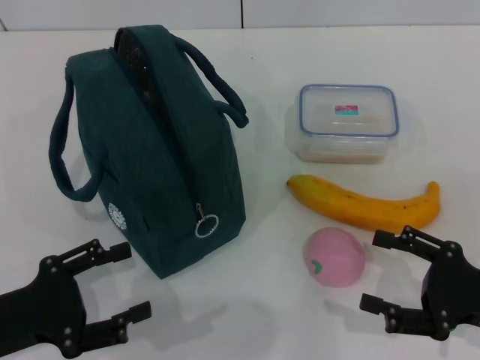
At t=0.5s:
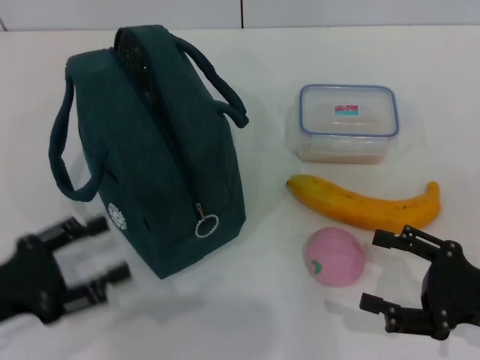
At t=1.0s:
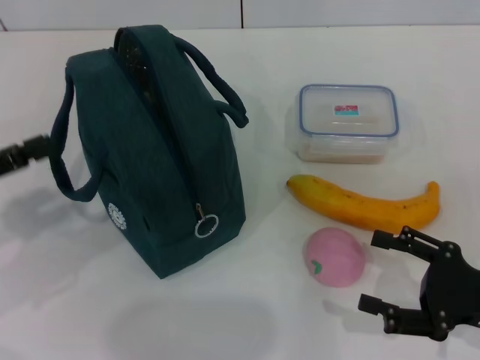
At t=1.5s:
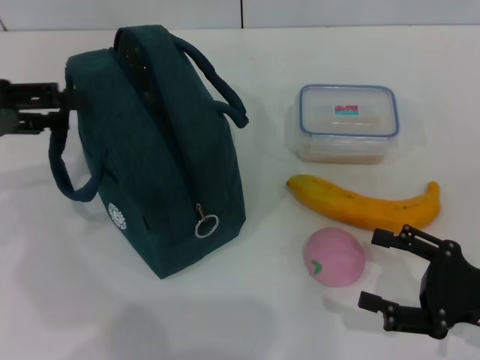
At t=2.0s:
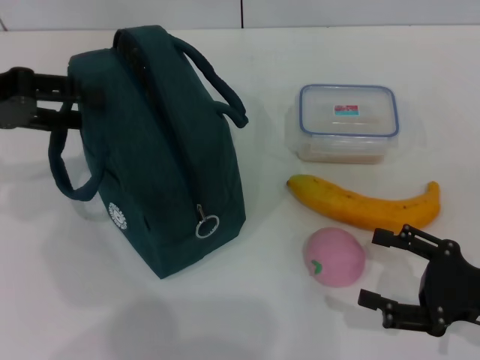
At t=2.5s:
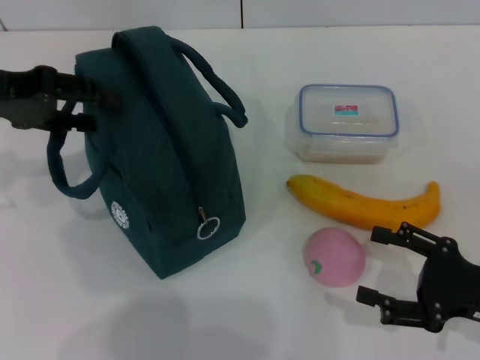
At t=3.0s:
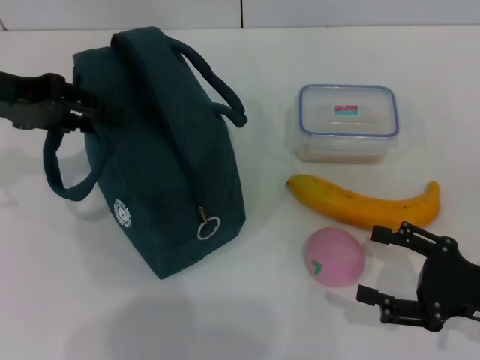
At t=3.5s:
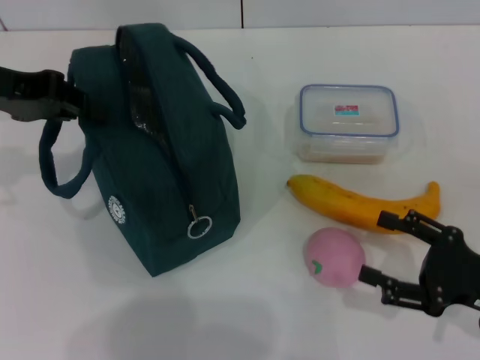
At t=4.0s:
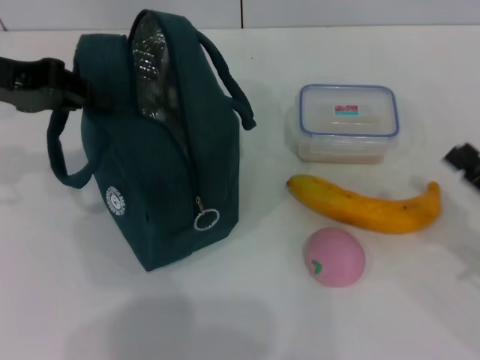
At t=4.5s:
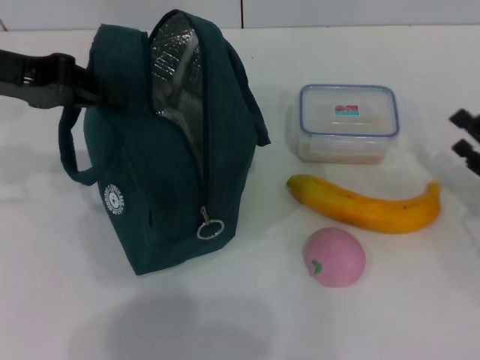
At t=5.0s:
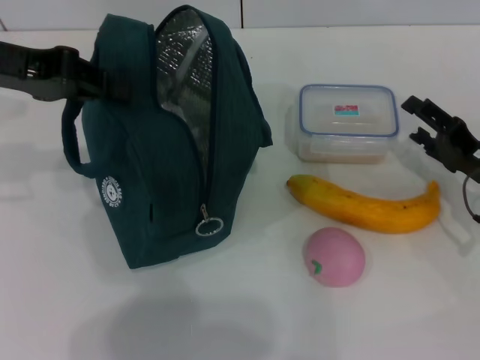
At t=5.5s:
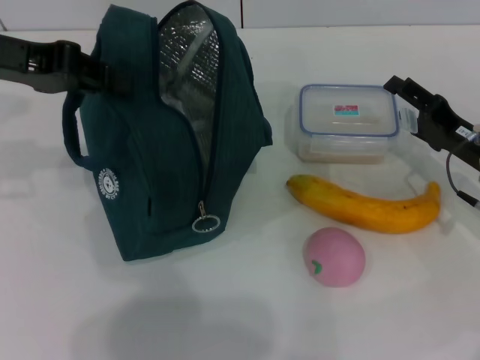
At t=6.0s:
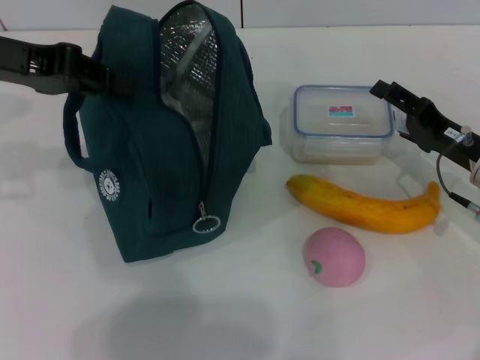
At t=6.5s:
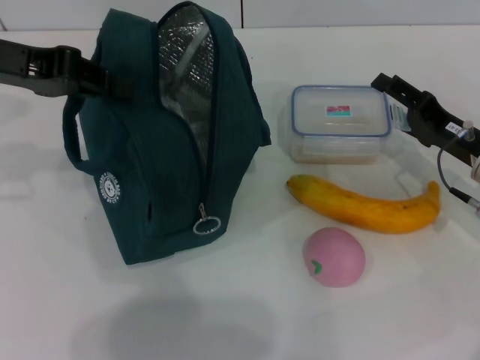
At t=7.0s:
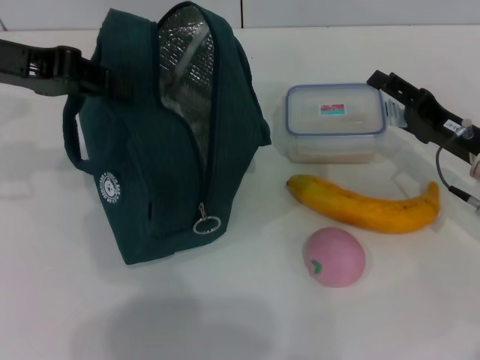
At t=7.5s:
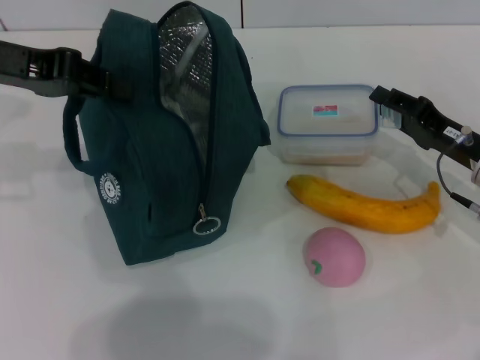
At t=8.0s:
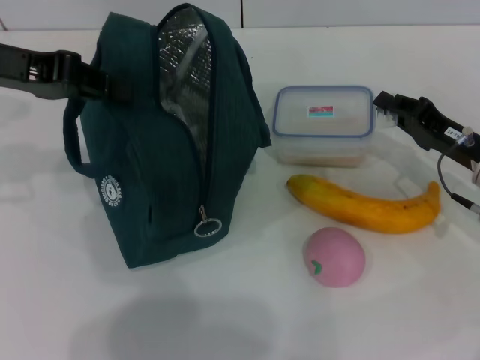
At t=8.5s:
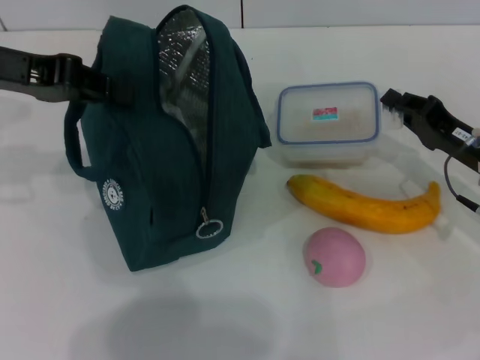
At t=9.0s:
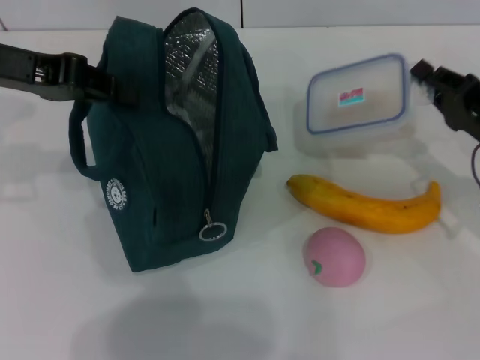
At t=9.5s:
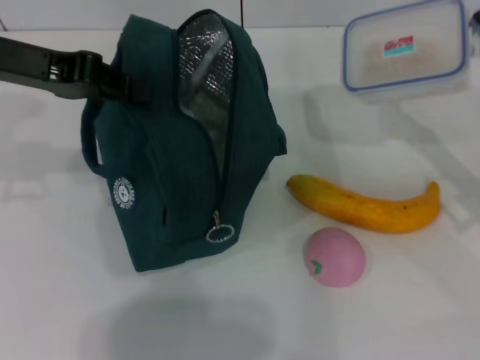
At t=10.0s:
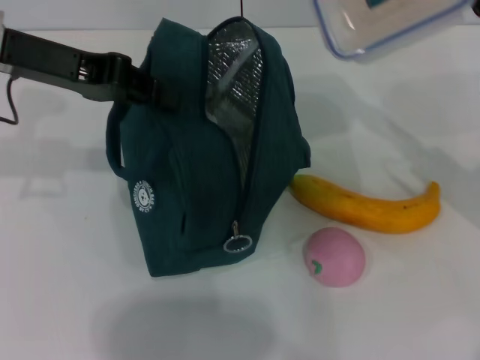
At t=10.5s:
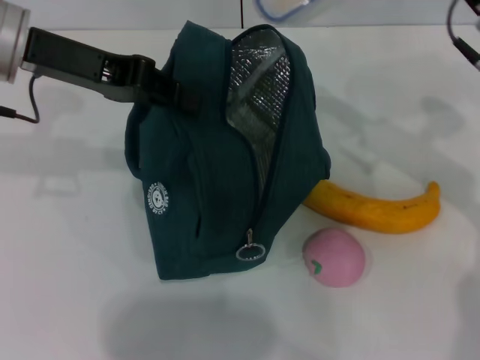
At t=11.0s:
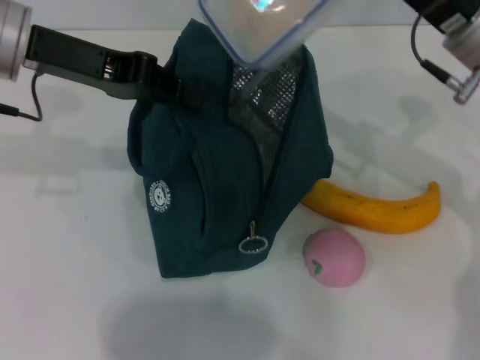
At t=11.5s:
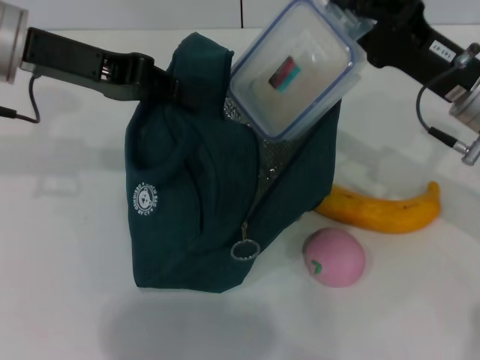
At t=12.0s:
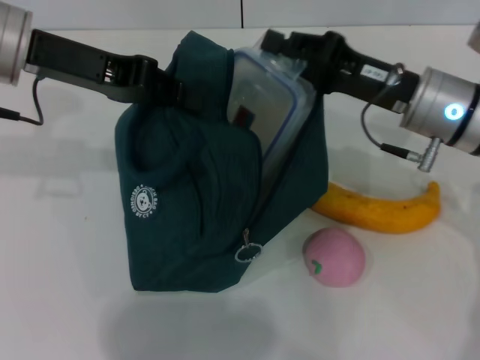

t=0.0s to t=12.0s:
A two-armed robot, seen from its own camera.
Step, t=0.0s to t=3.5s: Hold the lunch bag with your left hand.
Step, t=4.0s to t=8.0s: Pick up the lunch box with your right hand.
t=0.0s to t=2.0s: The left gripper heads forward and upward, covering some 20 cm.
t=2.0s to t=4.0s: The left gripper closes up.
t=4.0s to t=6.0s: The right gripper heads forward and to the left, covering some 15 cm.
t=6.0s to t=8.0s: The right gripper closes up.
t=8.0s to t=10.0s: The right gripper shifts some 10 cm upward.
t=10.0s to t=12.0s: The right gripper moves to the left, some 10 cm.

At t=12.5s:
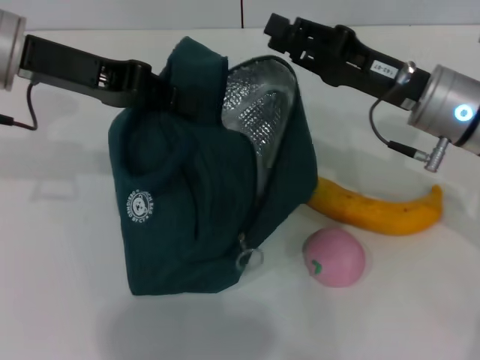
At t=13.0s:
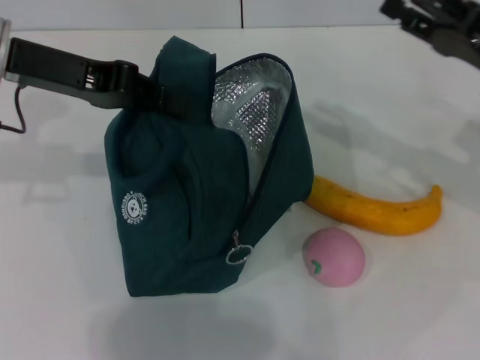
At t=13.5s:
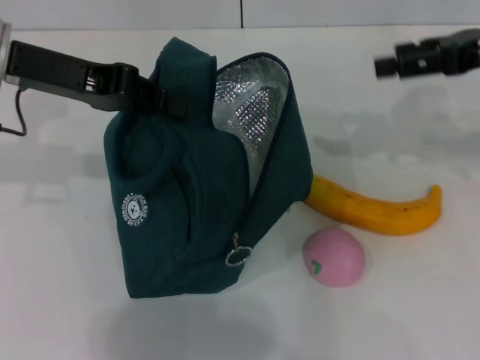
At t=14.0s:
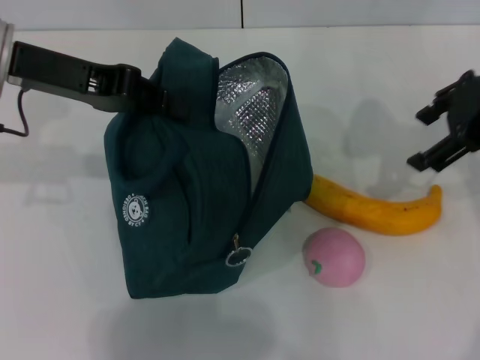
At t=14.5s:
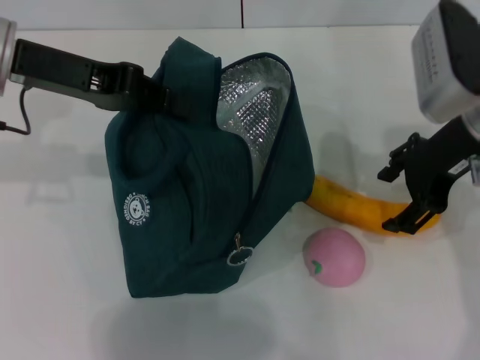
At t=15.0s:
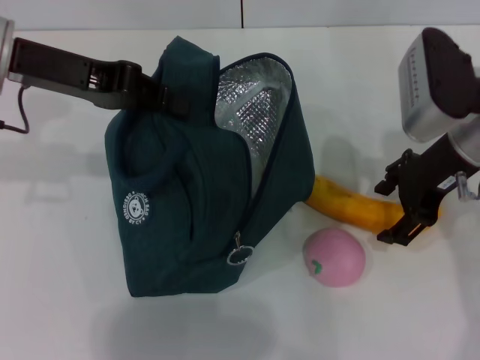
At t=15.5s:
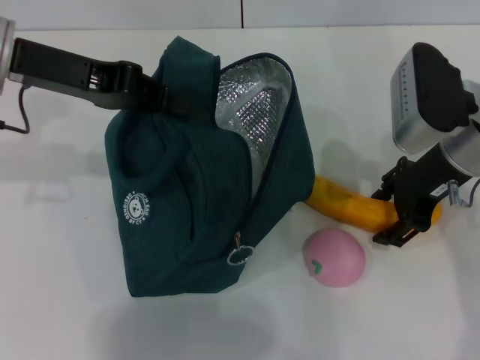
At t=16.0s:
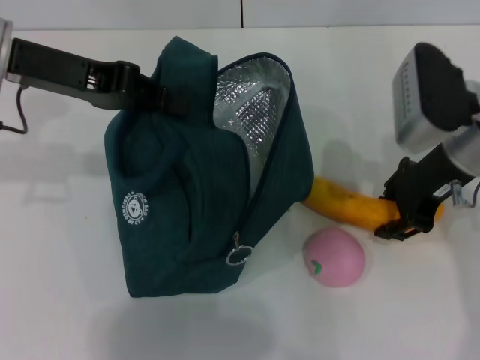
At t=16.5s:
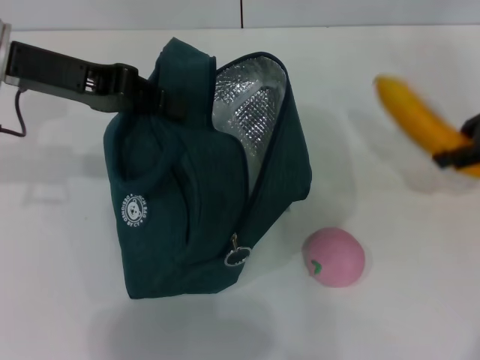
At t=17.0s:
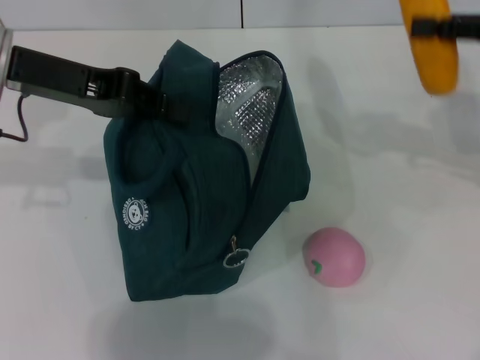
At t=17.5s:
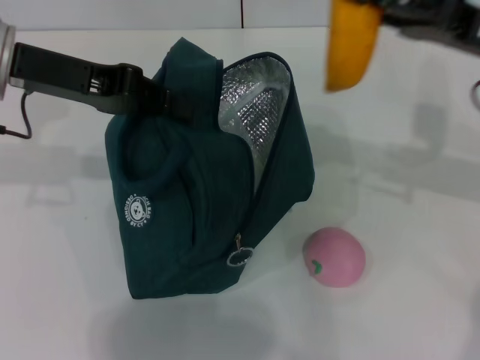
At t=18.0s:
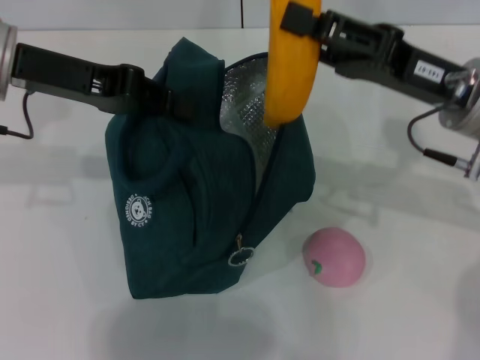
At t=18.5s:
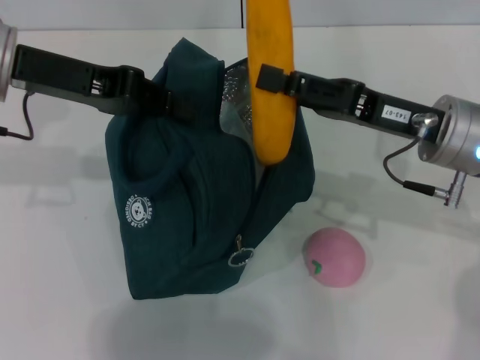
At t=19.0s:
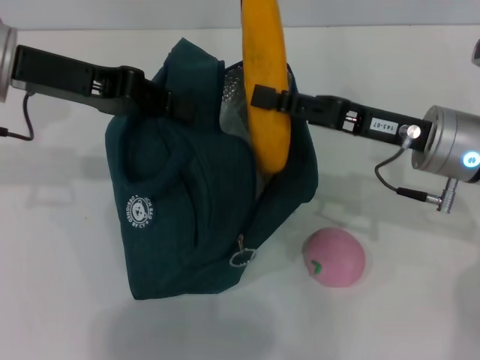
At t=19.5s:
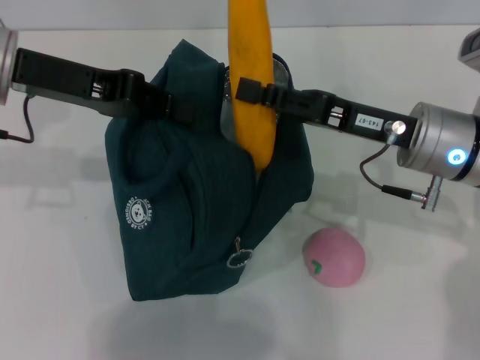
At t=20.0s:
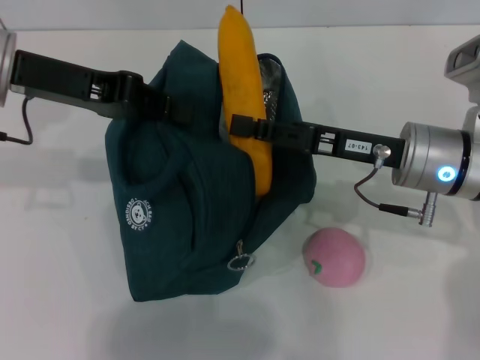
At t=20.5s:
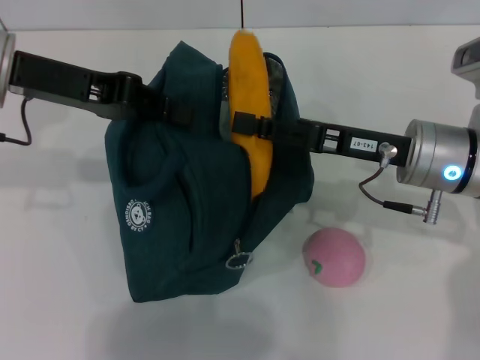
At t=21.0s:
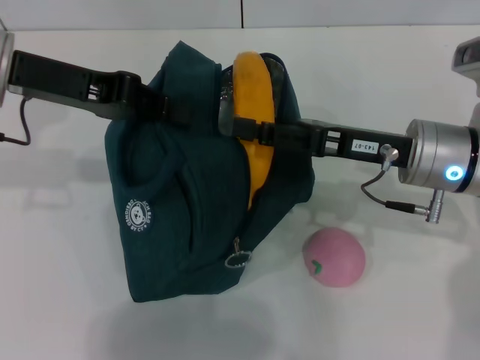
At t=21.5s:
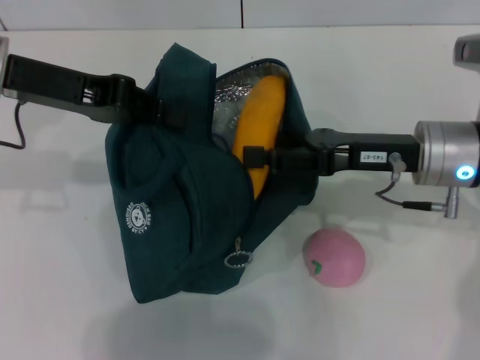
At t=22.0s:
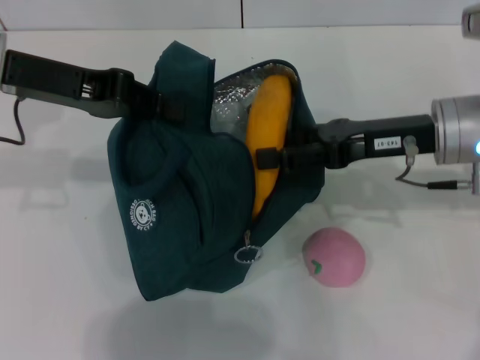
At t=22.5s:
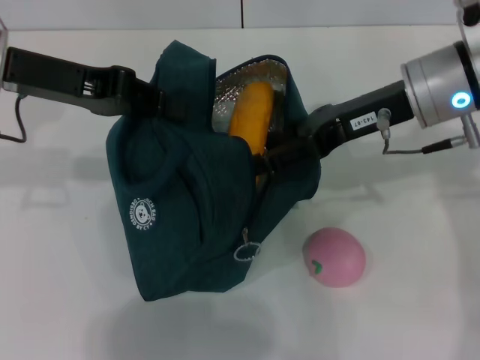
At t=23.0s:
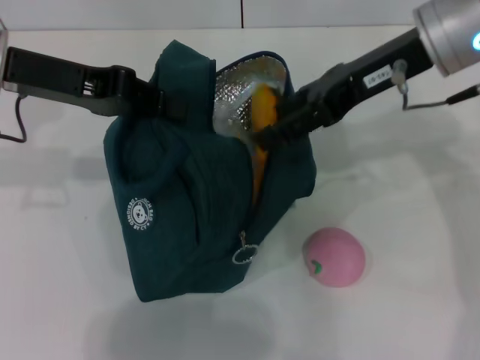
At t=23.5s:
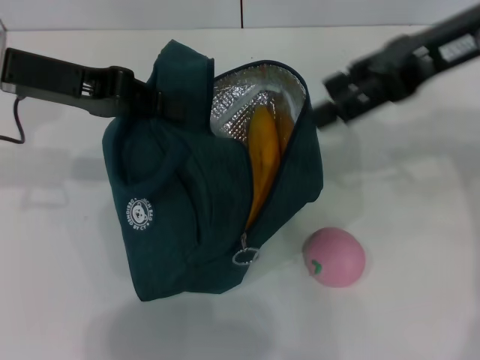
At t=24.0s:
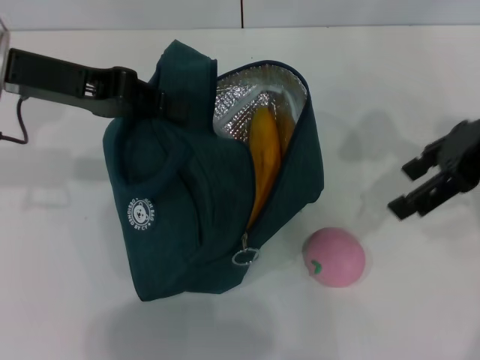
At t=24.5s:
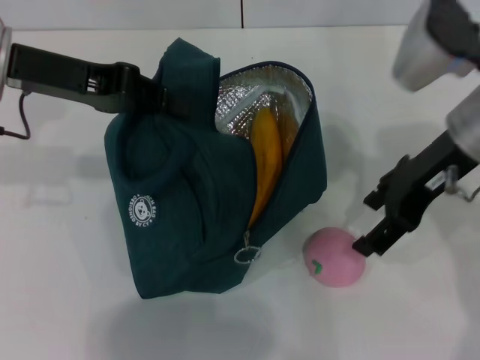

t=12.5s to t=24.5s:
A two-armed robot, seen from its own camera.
Step, t=13.0s to t=15.5s: Take the banana with your right hand.
Step, t=16.0s to t=22.5s: Put the banana into the lunch bag with your right hand.
t=12.5s to t=14.5s: The right gripper moves upward, roughly 5 cm, and opens.
t=14.5s to t=16.5s: The right gripper moves to the right, roughly 10 cm, and closes up.
t=16.5s to t=18.5s: The right gripper is displaced to the left and downward by roughly 15 cm.
t=18.5s to t=20.5s: There are only small adjustments of the grippers.
t=20.5s to t=22.5s: The right gripper shifts about 10 cm upward, and opens up.
t=22.5s to t=24.5s: The right gripper moves roughly 10 cm to the right and comes back.

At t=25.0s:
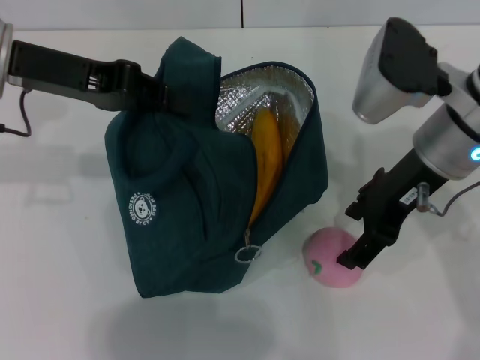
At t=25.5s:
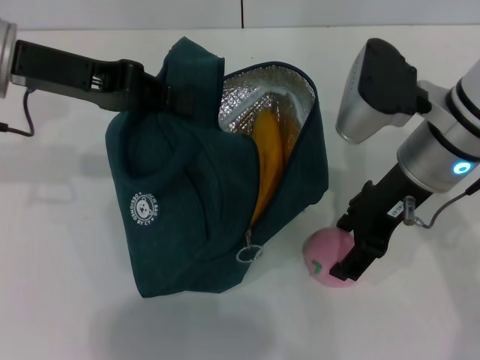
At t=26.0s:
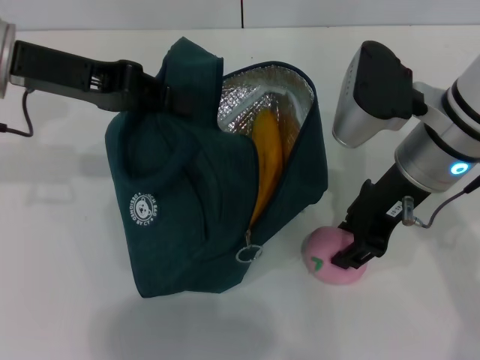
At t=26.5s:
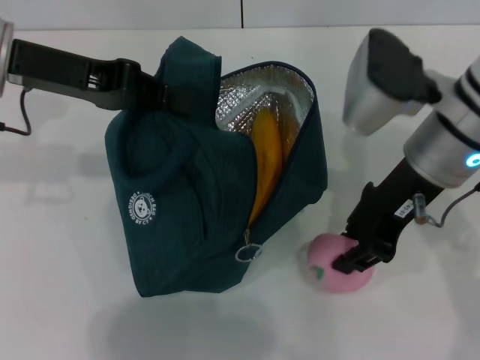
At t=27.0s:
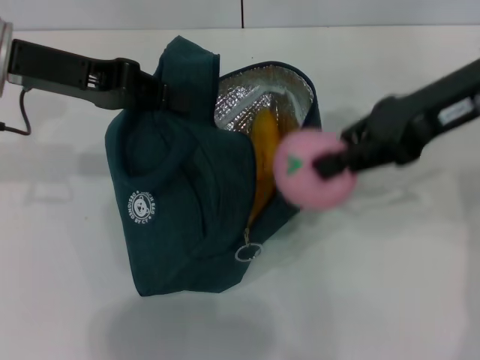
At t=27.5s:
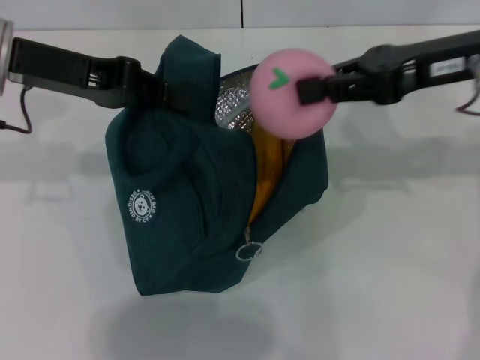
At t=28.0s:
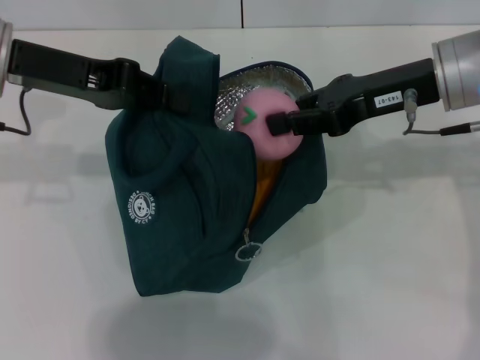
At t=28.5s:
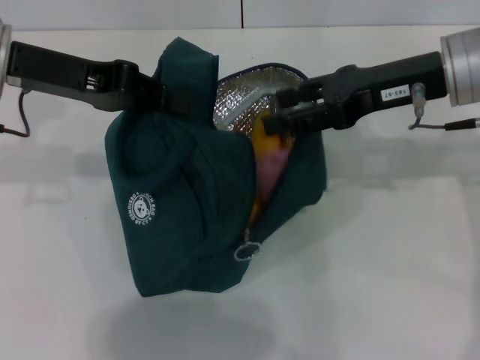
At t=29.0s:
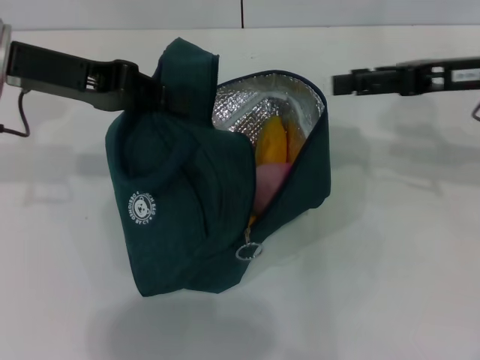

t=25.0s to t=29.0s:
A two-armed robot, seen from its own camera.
t=25.0s to t=27.0s: The right gripper travels upward by some 5 cm, and closes its fingers.
t=27.0s to t=29.0s: The right gripper shifts about 10 cm downward and to the right, and opens.
